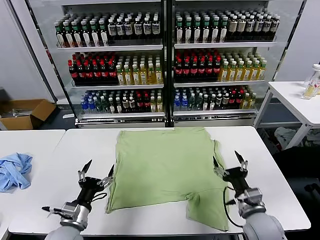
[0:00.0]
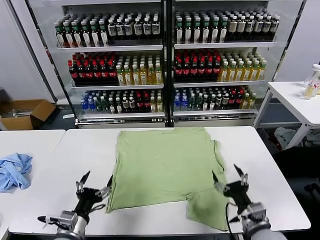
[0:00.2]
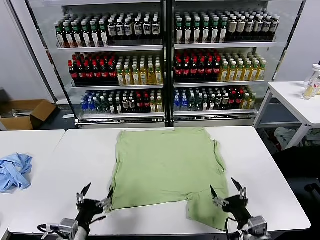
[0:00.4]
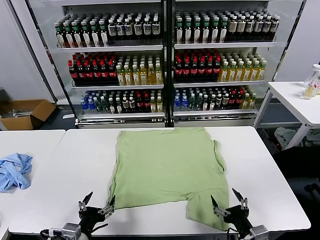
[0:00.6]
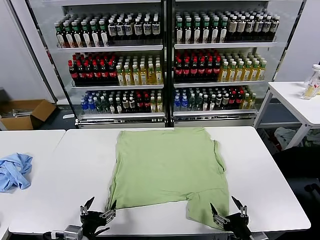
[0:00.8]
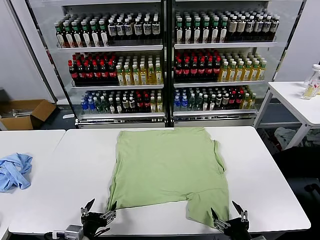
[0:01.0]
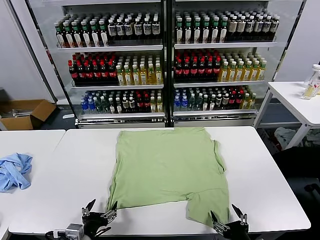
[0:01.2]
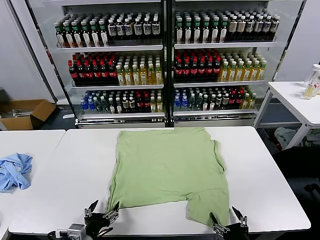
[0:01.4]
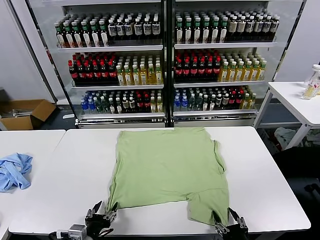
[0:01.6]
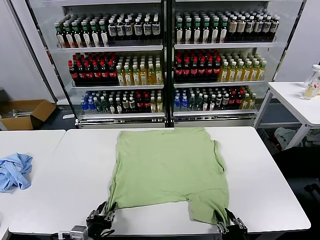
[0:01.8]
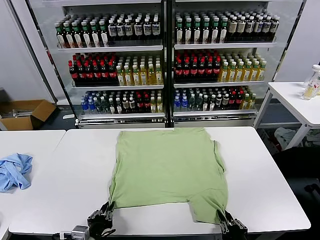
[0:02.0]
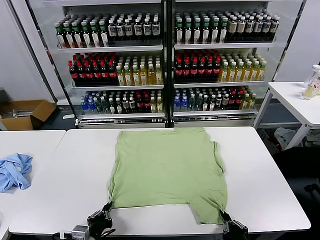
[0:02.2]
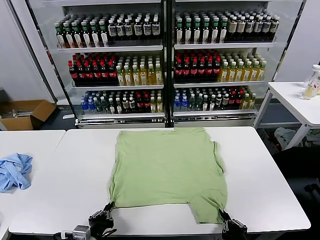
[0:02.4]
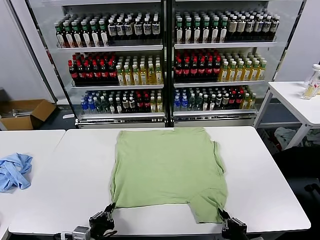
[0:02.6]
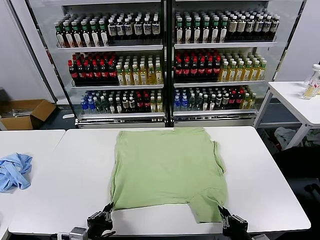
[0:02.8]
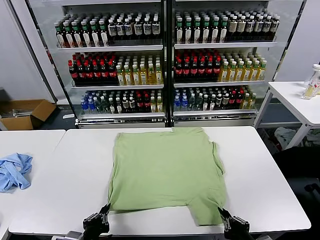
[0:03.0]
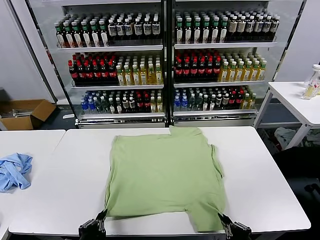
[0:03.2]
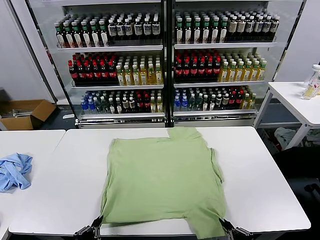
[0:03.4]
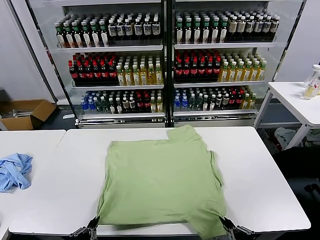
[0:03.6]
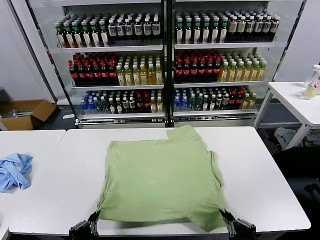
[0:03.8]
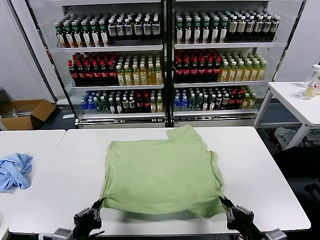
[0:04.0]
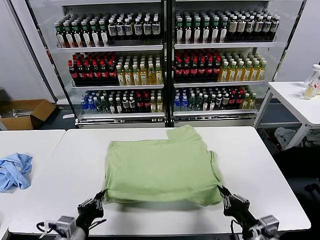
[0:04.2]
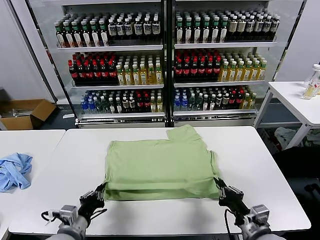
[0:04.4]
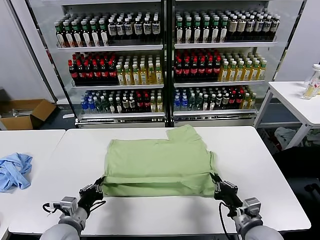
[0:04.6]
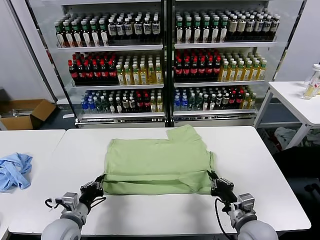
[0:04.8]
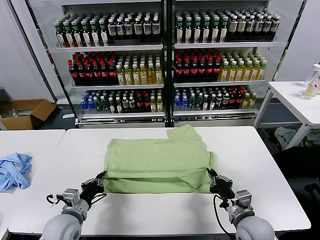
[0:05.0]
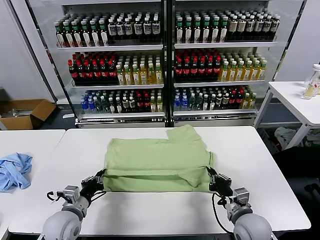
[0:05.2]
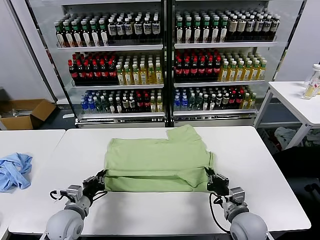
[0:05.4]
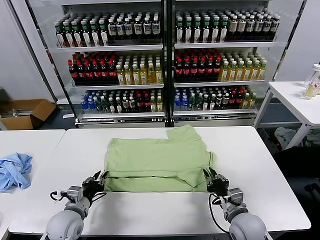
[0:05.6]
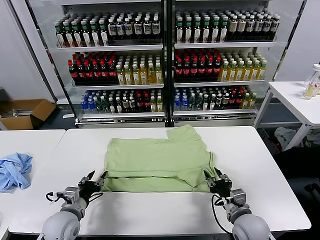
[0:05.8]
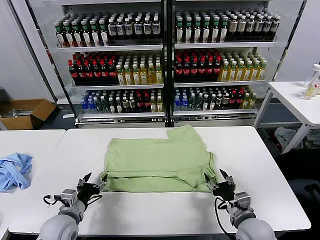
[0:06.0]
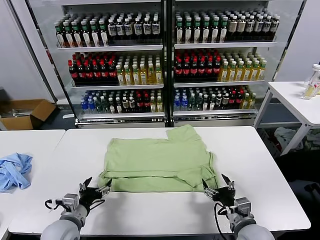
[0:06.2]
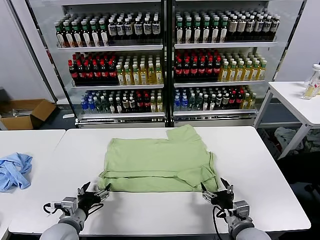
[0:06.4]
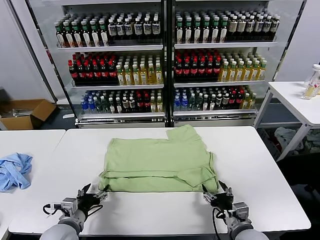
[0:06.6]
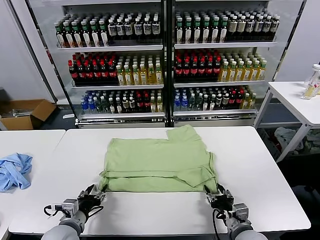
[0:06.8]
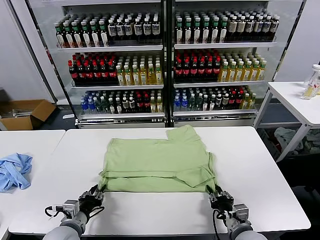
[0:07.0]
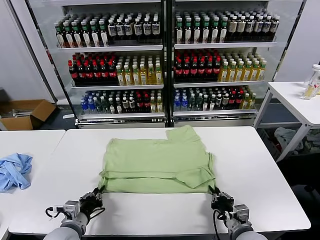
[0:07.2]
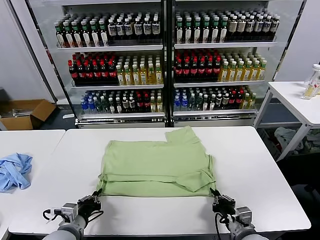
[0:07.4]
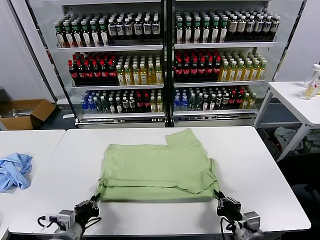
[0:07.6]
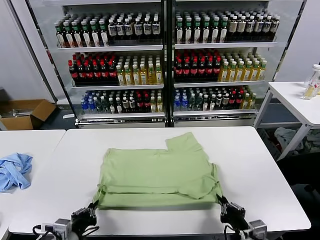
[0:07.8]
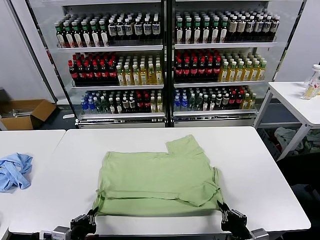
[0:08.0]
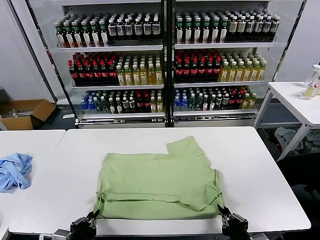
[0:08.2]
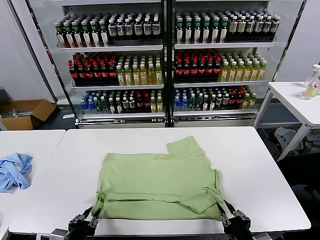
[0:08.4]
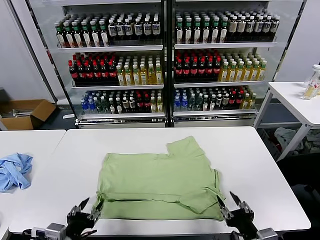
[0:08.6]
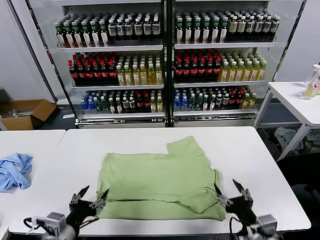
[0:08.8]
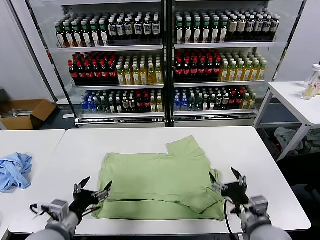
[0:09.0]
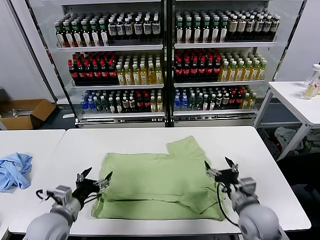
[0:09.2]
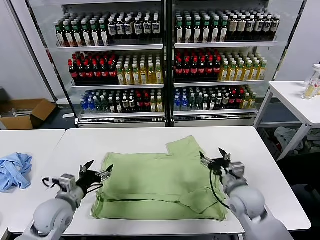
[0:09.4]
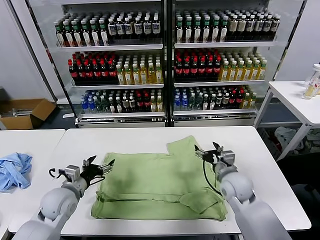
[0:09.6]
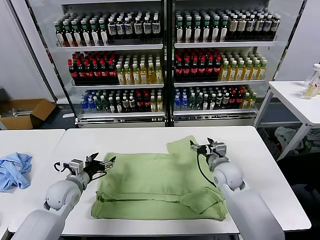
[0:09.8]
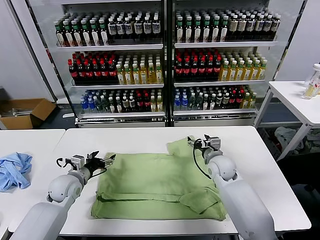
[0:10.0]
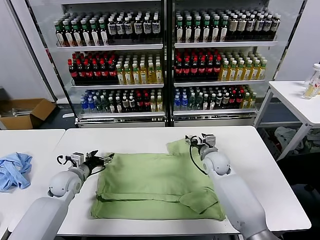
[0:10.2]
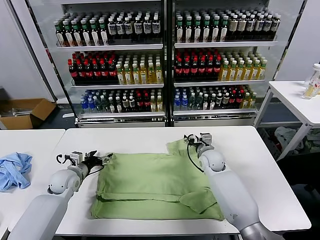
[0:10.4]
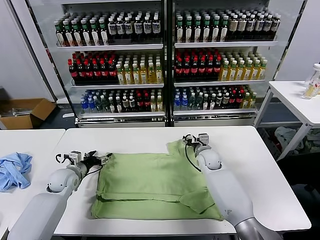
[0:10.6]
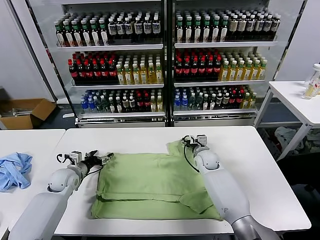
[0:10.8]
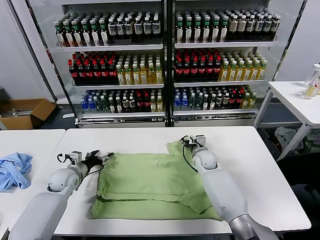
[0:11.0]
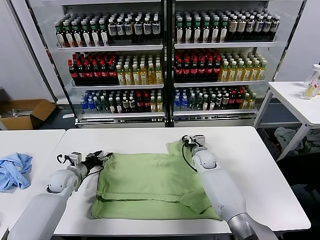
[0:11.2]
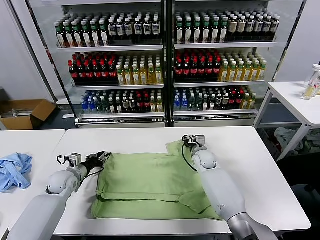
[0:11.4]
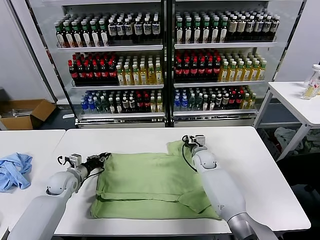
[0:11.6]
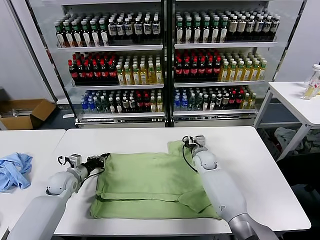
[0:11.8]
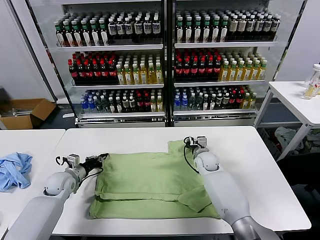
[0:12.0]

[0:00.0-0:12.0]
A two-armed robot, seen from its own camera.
Task of the whole recording: fold and organize the clothes.
Step, 0:00.0 to 0:02.8: use both grippers simultaneously to clamp the lower edge of the clothing fabric.
Step, 0:03.0 to 0:05.8: use both grippers to drag the lower edge of the fabric forward and fold it over the upper edge.
Step, 0:06.2 to 0:08.4: Drag the clothes downward with both gripper.
Step, 0:08.6 to 0:11.8: use both grippers simultaneously to clamp the upper edge of the clothing fabric.
0:01.6 to 0:03.0: The right gripper goes about 5 cm upward, and closes up; the left gripper closes.
0:03.0 to 0:04.4: The two grippers go some 10 cm forward.
0:04.4 to 0:06.0: The left gripper shifts by approximately 5 cm, and opens; the right gripper opens.
0:06.0 to 0:07.6: The two grippers go approximately 5 cm backward. The left gripper closes, while the right gripper closes its fingers.
0:07.6 to 0:09.0: The left gripper heads upward, covering some 5 cm, travels backward and back again, approximately 5 cm each way, and opens up. Meanwhile the right gripper moves forward, about 5 cm, and opens up.
0:09.0 to 0:10.4: The two grippers go approximately 25 cm forward.
0:10.4 to 0:12.0: The right gripper closes up. The left gripper closes up.

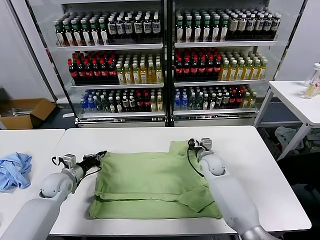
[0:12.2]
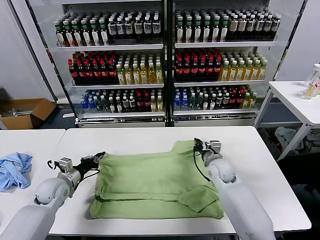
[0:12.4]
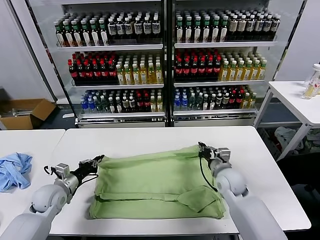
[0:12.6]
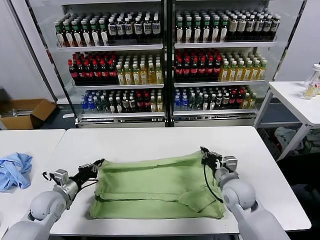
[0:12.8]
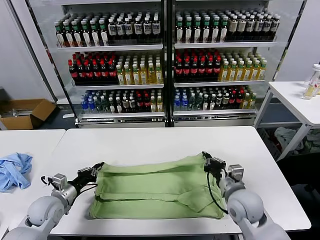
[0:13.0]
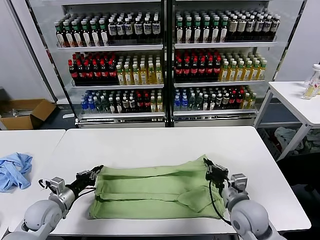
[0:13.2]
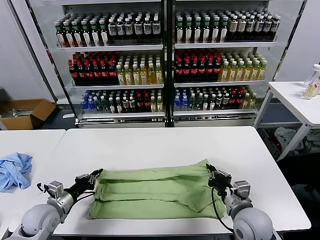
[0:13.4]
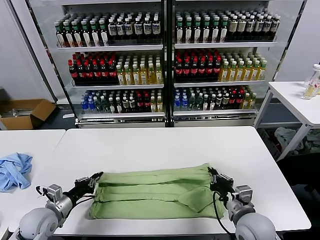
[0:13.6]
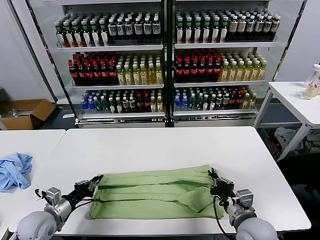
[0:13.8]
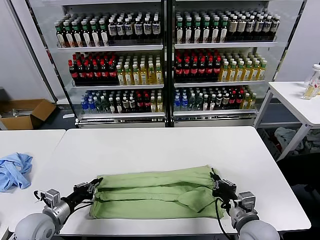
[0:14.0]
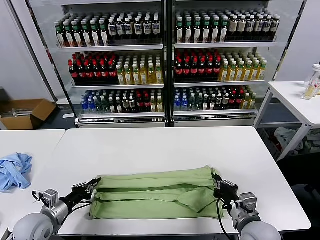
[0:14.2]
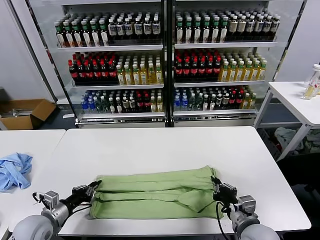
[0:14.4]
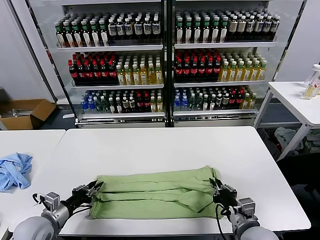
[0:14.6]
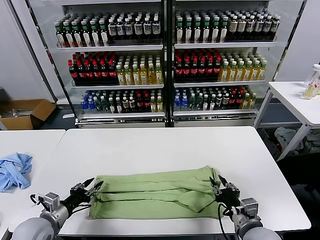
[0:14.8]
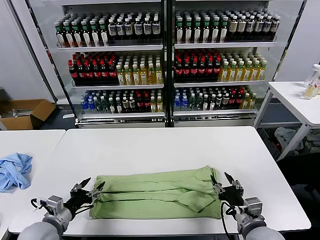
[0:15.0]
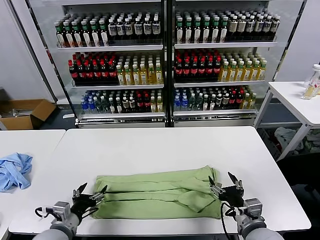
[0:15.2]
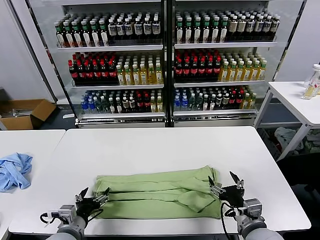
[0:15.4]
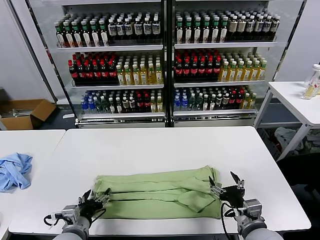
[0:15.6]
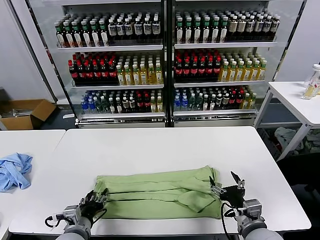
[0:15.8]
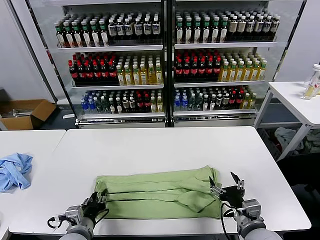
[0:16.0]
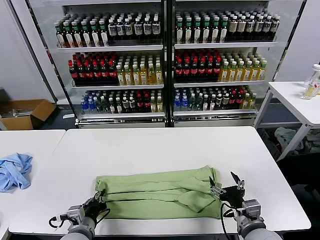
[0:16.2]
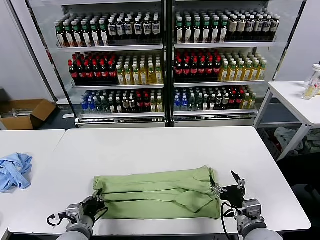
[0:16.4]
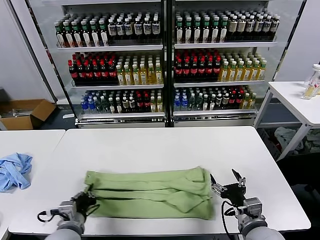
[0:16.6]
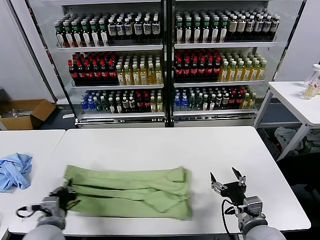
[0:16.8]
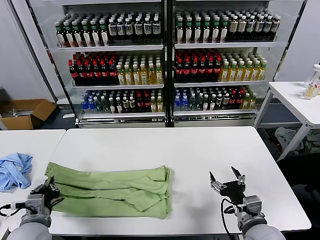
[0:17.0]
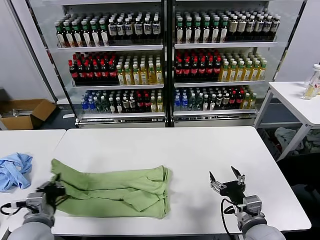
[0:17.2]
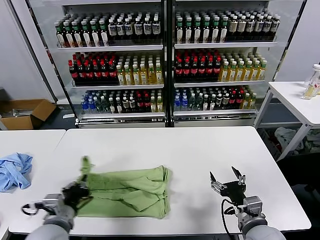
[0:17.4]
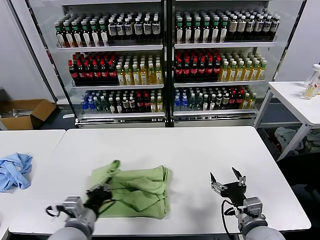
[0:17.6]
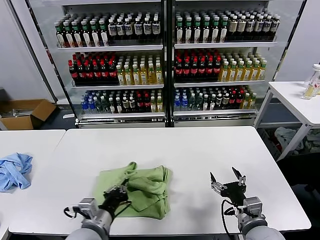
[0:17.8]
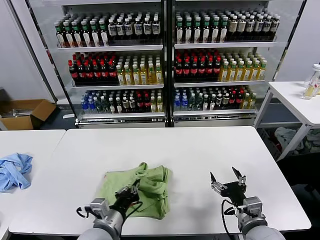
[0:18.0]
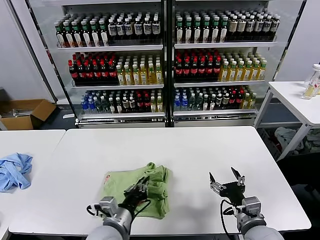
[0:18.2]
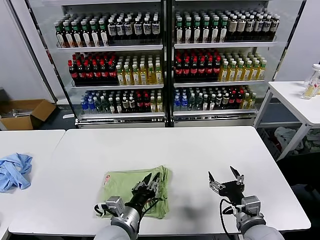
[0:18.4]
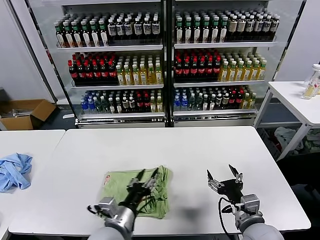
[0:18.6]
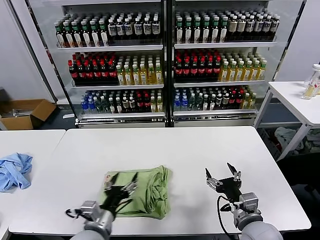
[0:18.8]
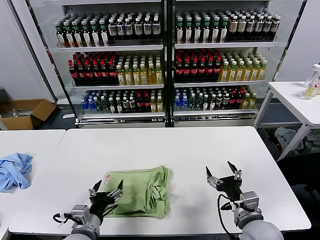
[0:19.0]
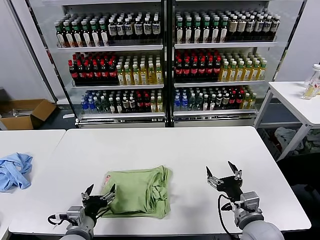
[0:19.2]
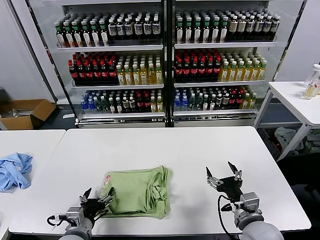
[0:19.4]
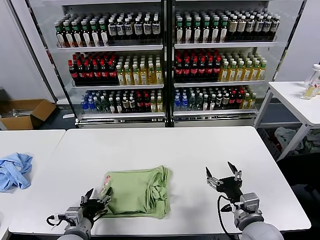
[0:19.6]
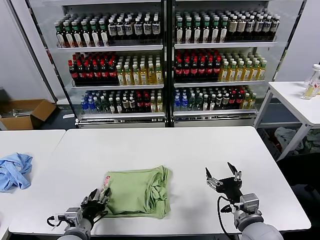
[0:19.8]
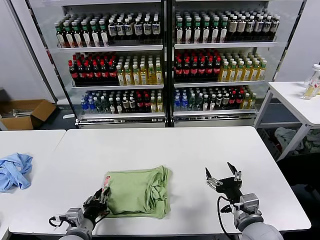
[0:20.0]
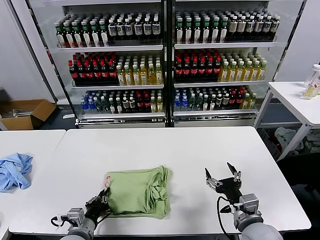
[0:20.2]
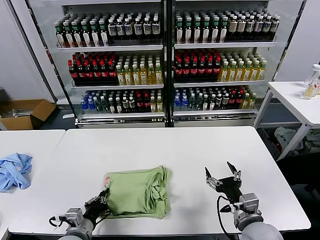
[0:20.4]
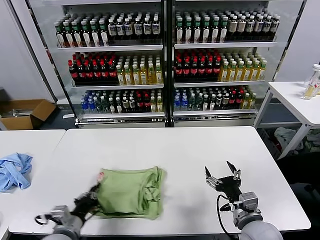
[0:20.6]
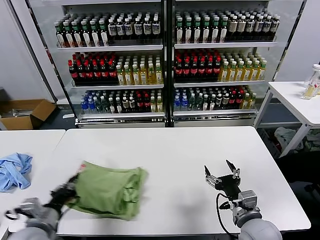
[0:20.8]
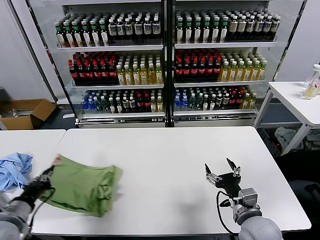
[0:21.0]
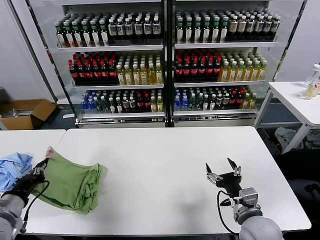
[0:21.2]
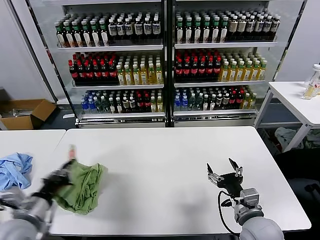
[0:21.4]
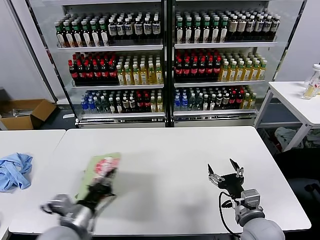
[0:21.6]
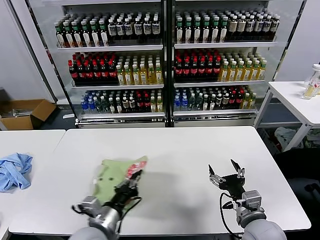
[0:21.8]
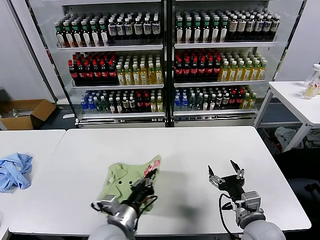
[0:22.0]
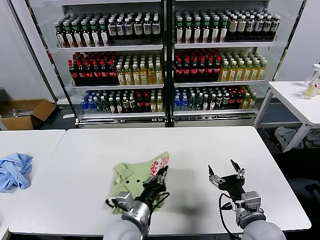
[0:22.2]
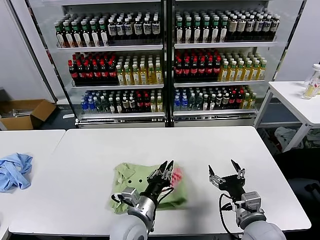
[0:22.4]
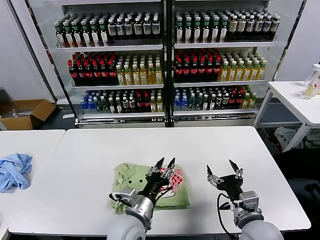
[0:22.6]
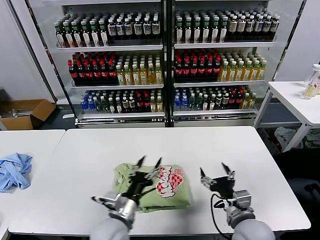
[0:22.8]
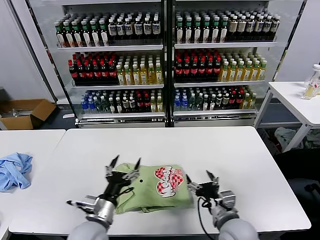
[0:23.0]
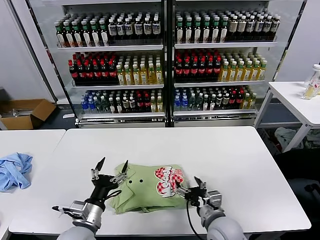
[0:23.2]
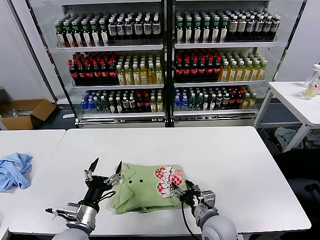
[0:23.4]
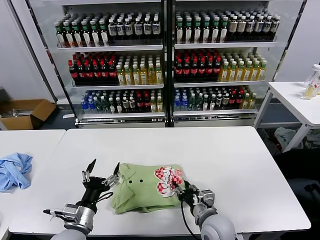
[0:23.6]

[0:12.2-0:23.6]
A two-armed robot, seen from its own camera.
Task of the whole recording: fold and organize the clothes.
Step, 0:12.2 to 0:14.8: use both grippers to drag the upper edge of the fabric backward and fold it over the lower edge.
Step, 0:15.0 to 0:16.2: use the left gripper to clamp the left edge of the fabric.
Step, 0:16.4 to 0:18.4: use the left gripper to drag the left edge of the fabric to the left and folds it over the right edge.
Step, 0:18.6 to 0:22.4: Flip the folded clothes over with left gripper.
0:12.2 to 0:13.6: The left gripper moves backward, approximately 15 cm. Meanwhile the right gripper shifts approximately 25 cm backward.
0:13.6 to 0:15.0: The right gripper opens up. Meanwhile the left gripper ends up roughly 5 cm from where it was, and opens up.
0:15.0 to 0:16.4: The left gripper goes about 10 cm to the right, and closes.
0:16.4 to 0:17.8: The left gripper goes approximately 10 cm upward and to the right.
0:17.8 to 0:19.4: The left gripper heads downward and to the left, covering roughly 10 cm, and opens its fingers.
0:19.4 to 0:20.8: The left gripper is displaced to the left and upward by some 10 cm, and closes its fingers.
0:20.8 to 0:22.2: The left gripper is displaced to the right by about 25 cm.
0:22.2 to 0:23.6: The right gripper heads to the left and downward, covering roughly 10 cm, and closes up. Meanwhile the left gripper goes some 15 cm to the left, and opens.
